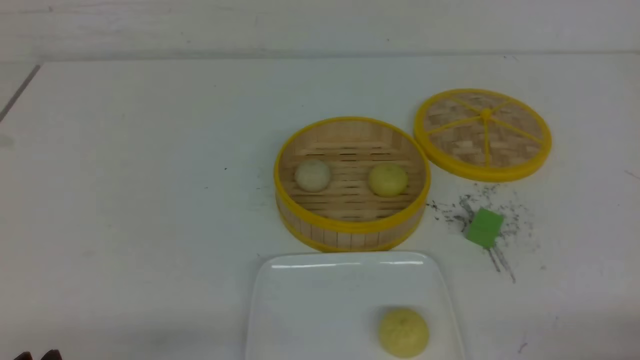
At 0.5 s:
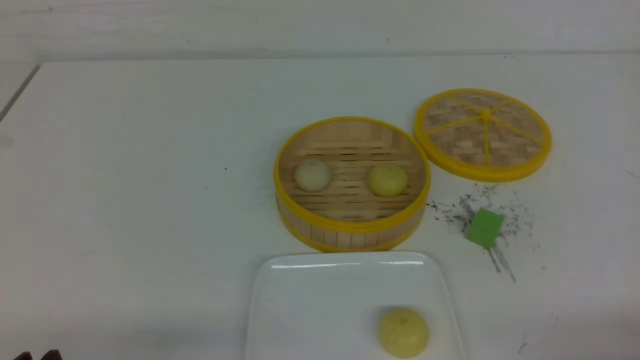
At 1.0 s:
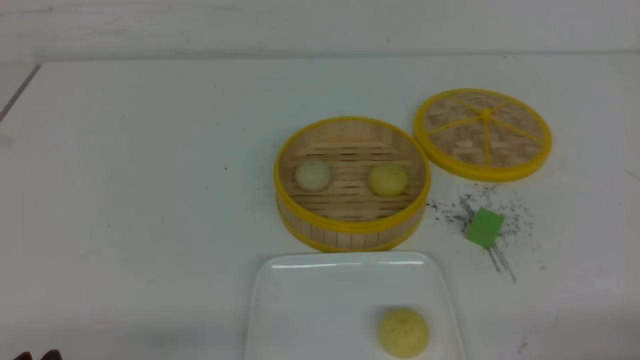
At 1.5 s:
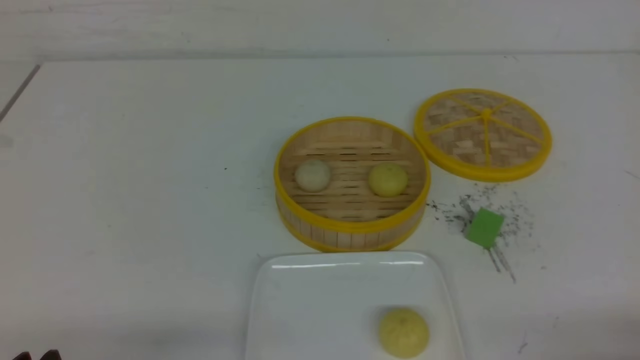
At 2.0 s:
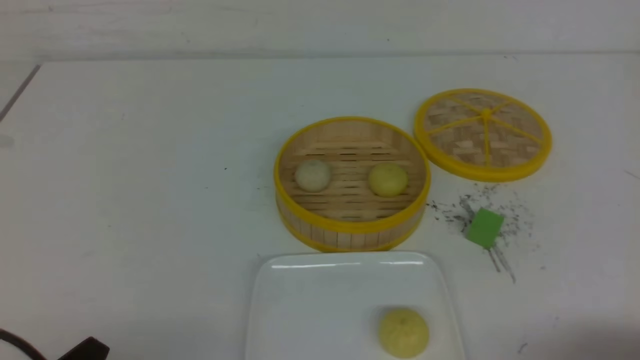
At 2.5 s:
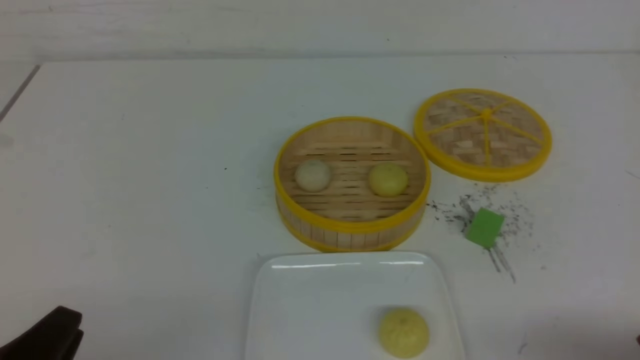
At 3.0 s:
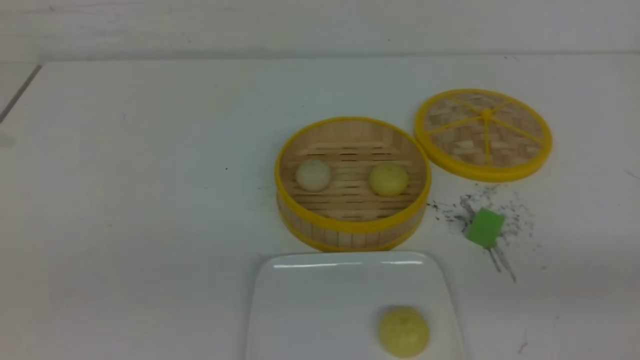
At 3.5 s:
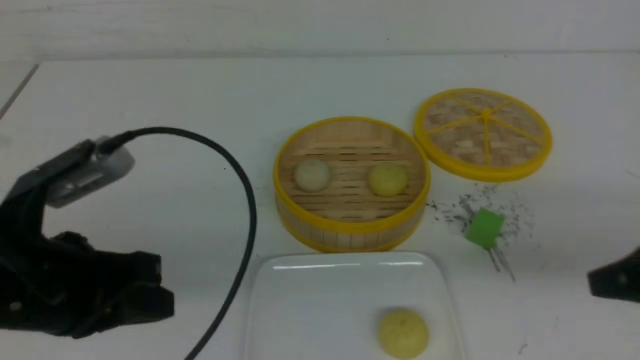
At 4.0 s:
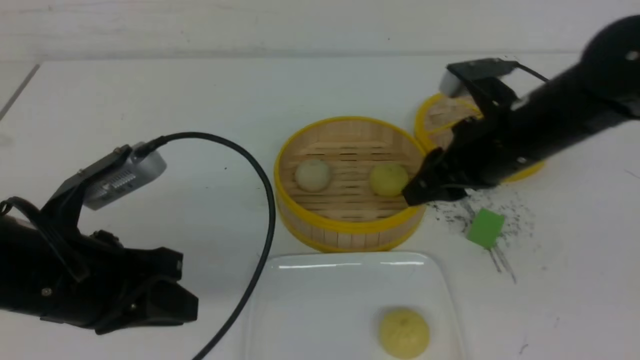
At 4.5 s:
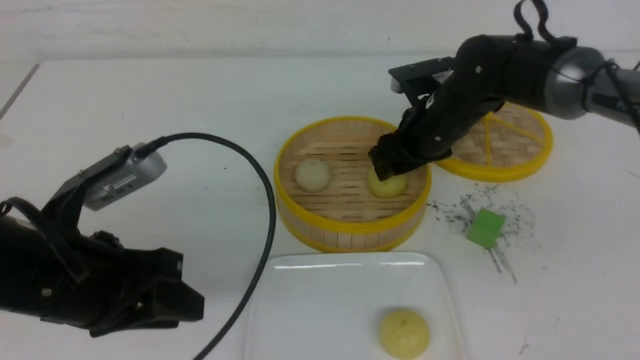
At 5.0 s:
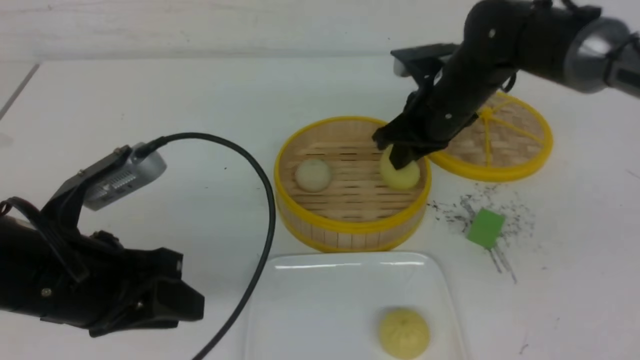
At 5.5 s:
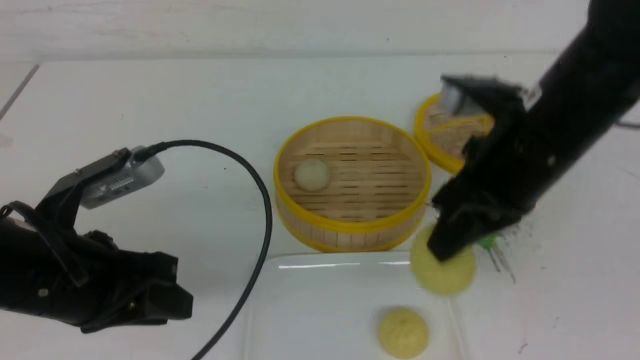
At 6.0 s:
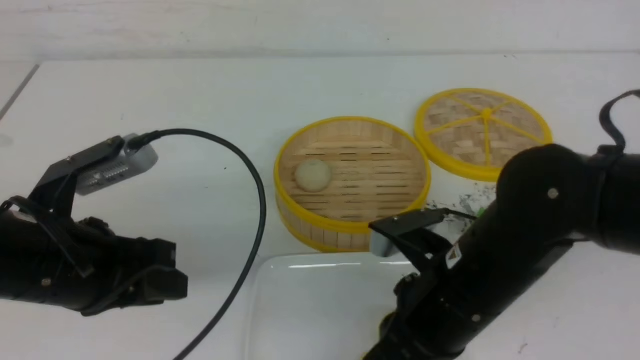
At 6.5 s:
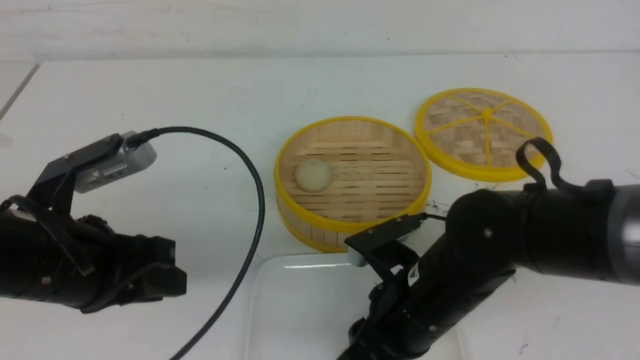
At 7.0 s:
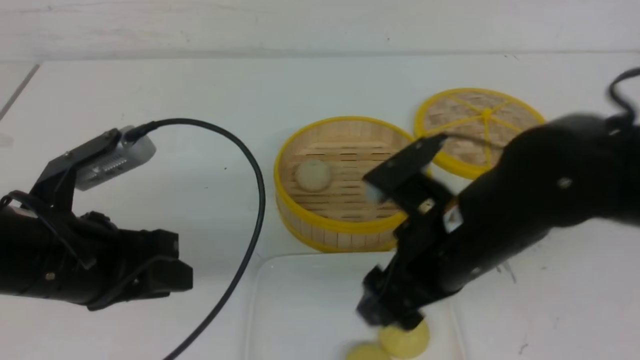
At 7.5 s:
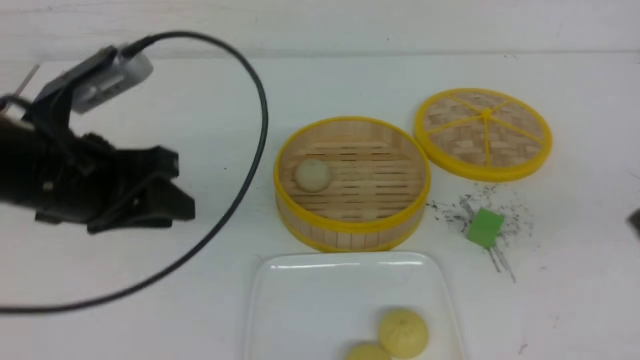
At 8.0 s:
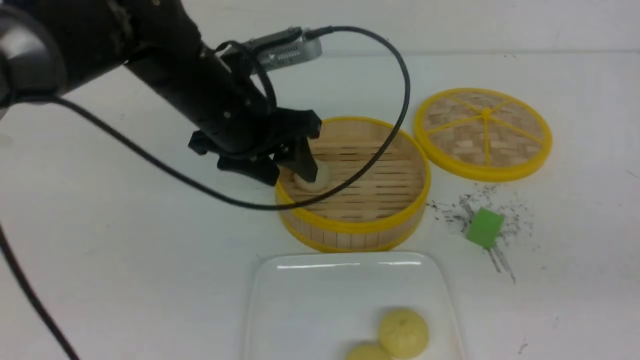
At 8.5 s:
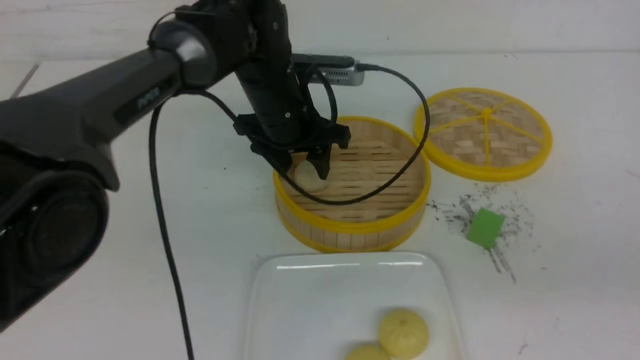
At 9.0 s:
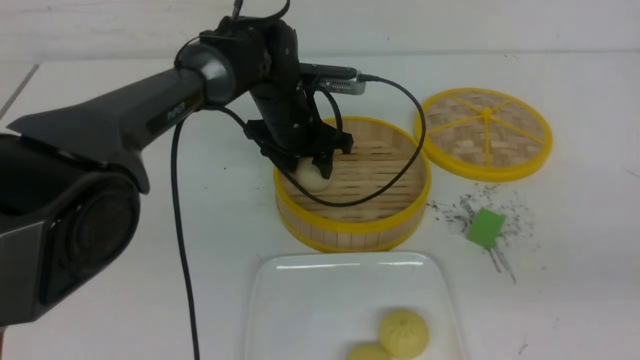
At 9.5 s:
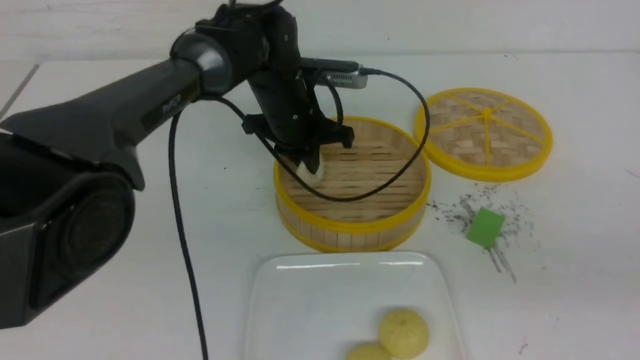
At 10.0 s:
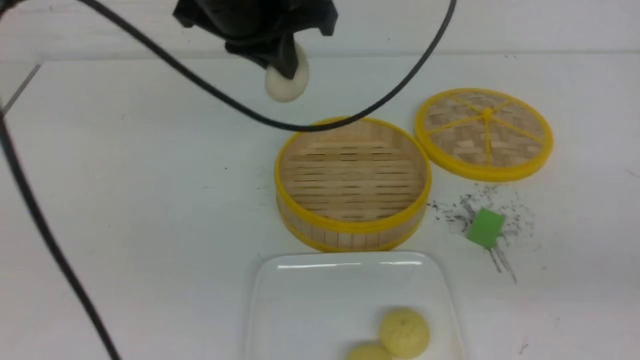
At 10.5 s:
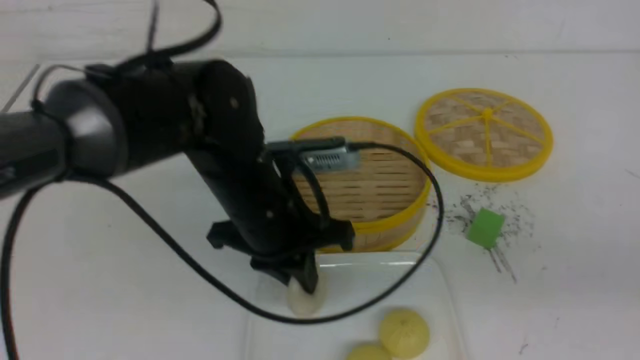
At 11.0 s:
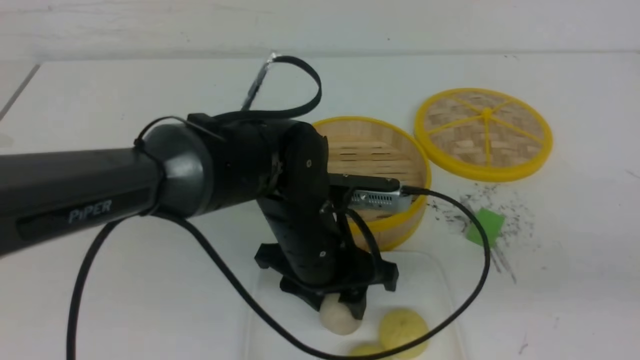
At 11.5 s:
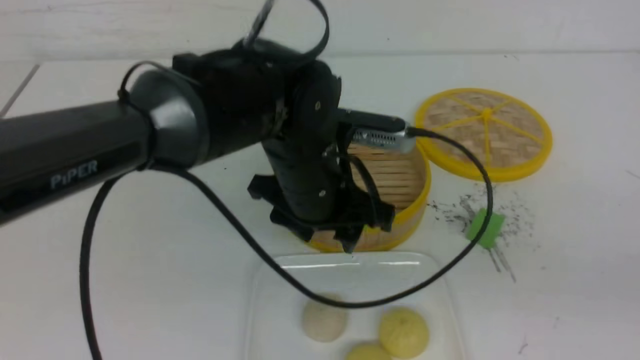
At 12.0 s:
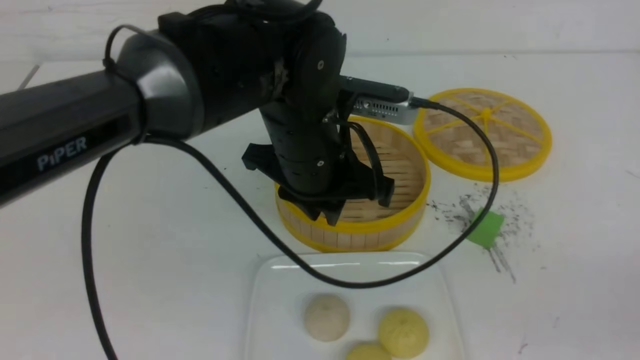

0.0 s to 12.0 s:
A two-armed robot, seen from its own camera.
Step, 0.0 to 4.5 s: use the right arm to grab the steamed stuffed bun that is closest to it.
Step, 5.0 to 6.5 s: use the right arm to put the steamed stuffed bun into the plate.
Step, 7.0 to 9.5 s: use the left arm to grab the steamed stuffed bun that is closest to it.
Step, 10.0 to 11.0 s: use the left arm to put the steamed stuffed bun into the plate.
2.0 to 4.0 s: The right gripper moves forward and to the left, some 30 cm, and closes, then opens again. Meanwhile the left gripper shifts roughly 15 cm forward and upward.
4.0 to 6.0 s: The right gripper is displaced backward and to the left by about 15 cm, and closes up.
6.0 to 8.0 s: The left gripper goes approximately 20 cm forward and to the right, and opens, while the right gripper moves to the right, upward and backward, some 25 cm, and opens, then closes again.
8.0 to 10.0 s: The left gripper is displaced upward by some 10 cm, and closes up.
10.0 to 12.0 s: The right gripper heads backward and to the right, covering approximately 15 cm; the left gripper heads downward and to the right, covering some 10 cm, and opens, then closes once more.

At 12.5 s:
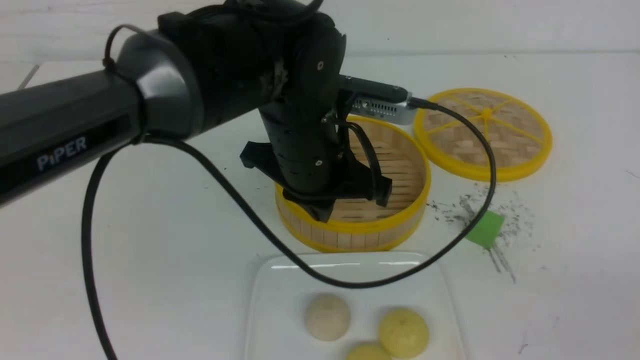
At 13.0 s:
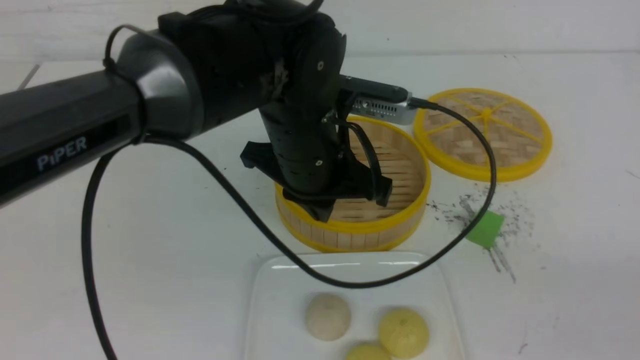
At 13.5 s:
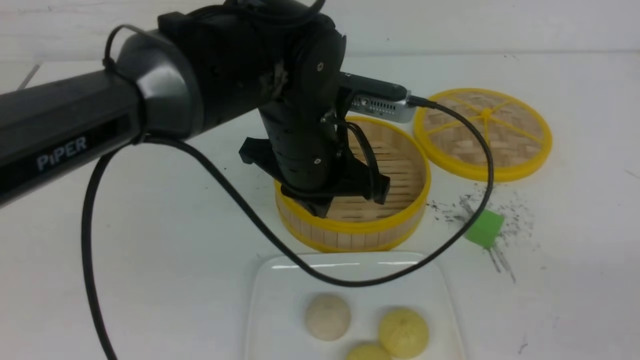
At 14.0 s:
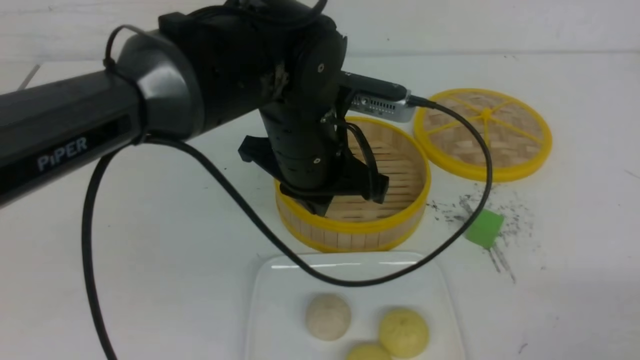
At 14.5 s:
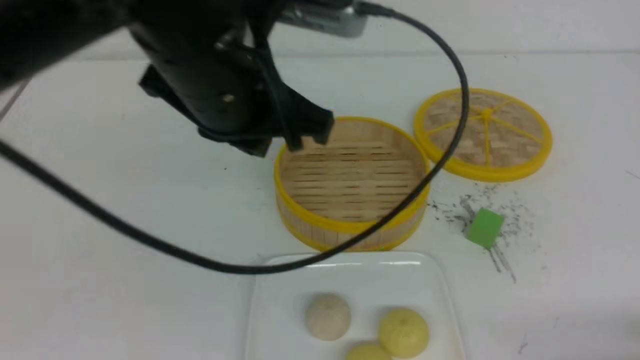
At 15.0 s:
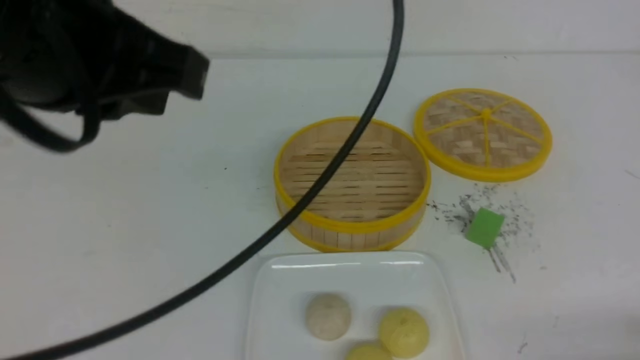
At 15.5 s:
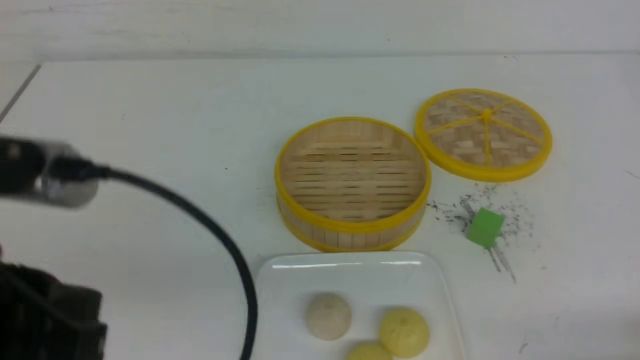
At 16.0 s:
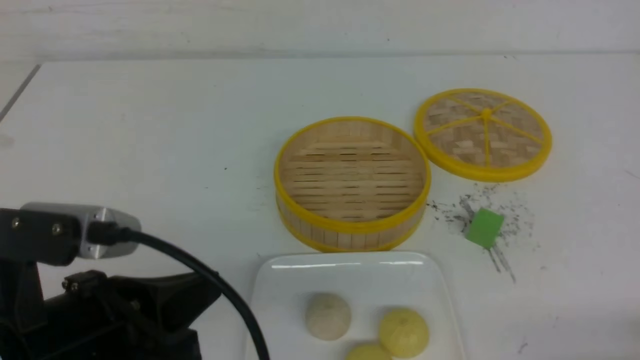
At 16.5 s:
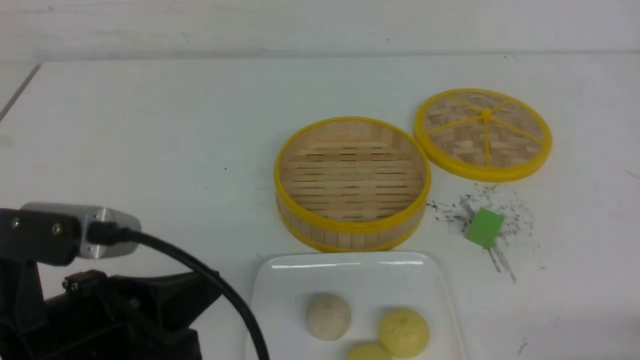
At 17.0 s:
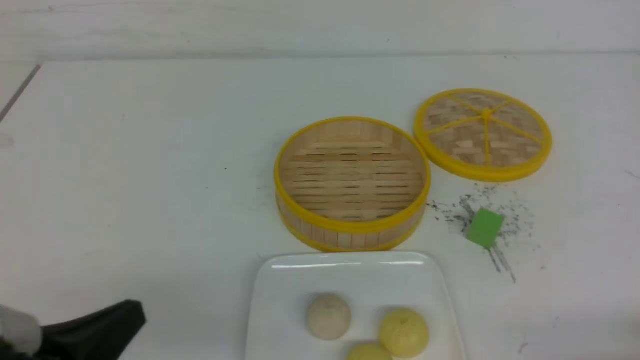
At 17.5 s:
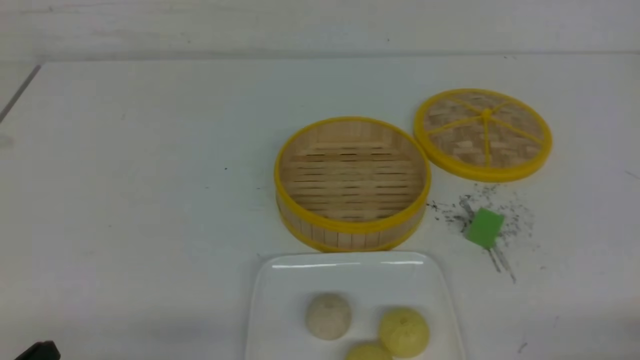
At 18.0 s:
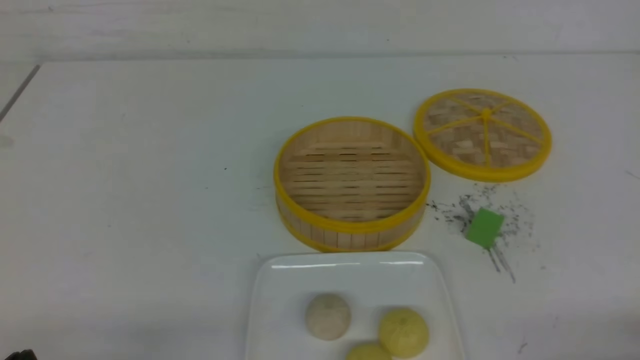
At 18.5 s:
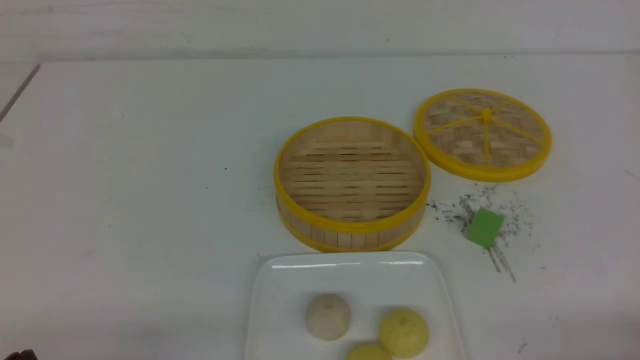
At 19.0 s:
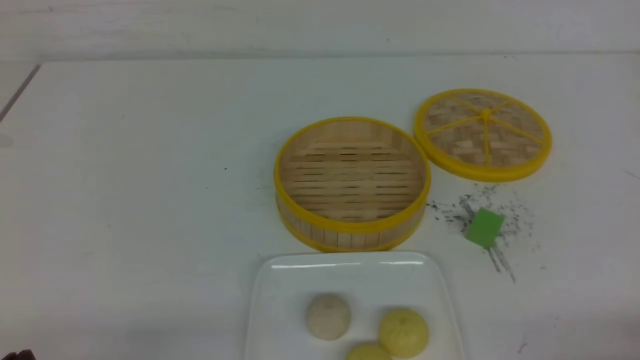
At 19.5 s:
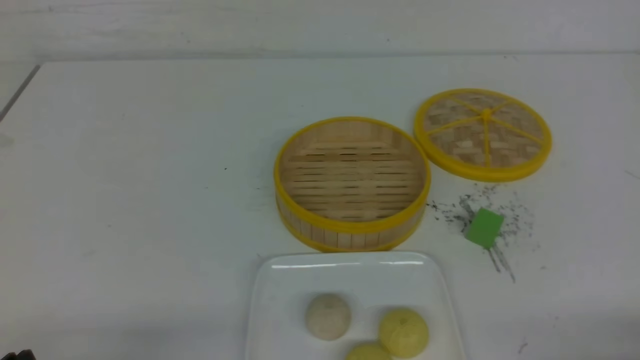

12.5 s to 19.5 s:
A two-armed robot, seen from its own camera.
12.5 to 14.5 s: The right gripper shifts about 10 cm downward. The left gripper heads upward and to the left, covering about 10 cm.
14.5 to 16.0 s: The left gripper is displaced backward, downward and to the left by some 20 cm.
16.0 to 17.5 s: The left gripper heads downward and to the left, covering approximately 15 cm.
